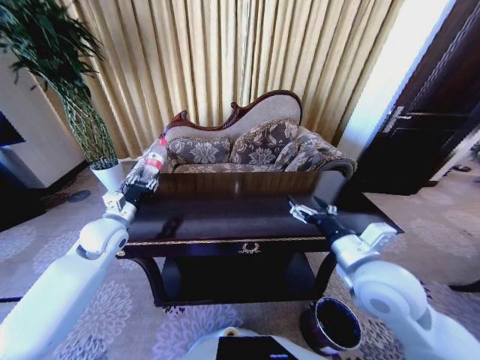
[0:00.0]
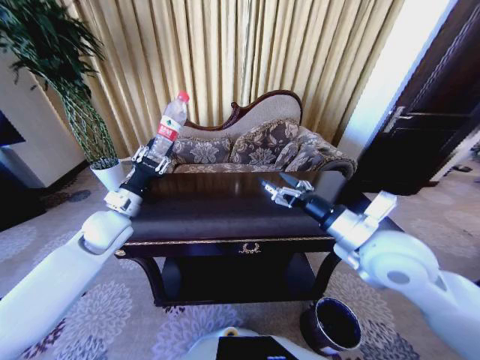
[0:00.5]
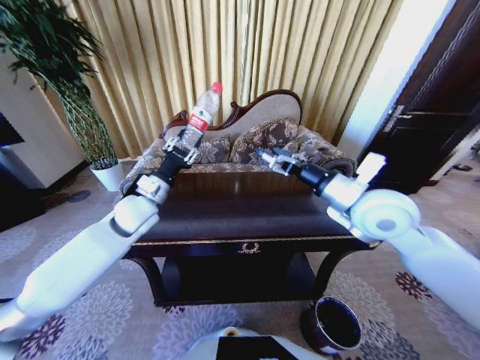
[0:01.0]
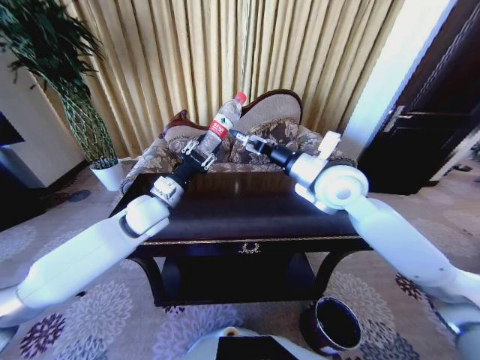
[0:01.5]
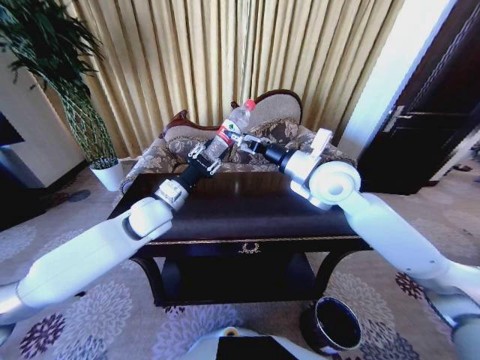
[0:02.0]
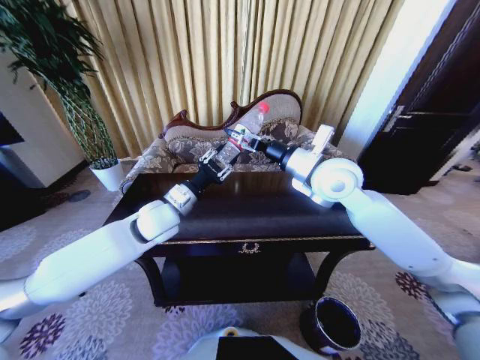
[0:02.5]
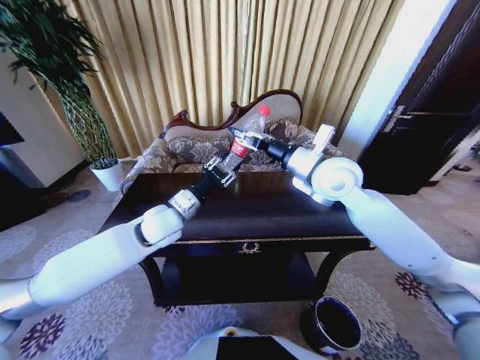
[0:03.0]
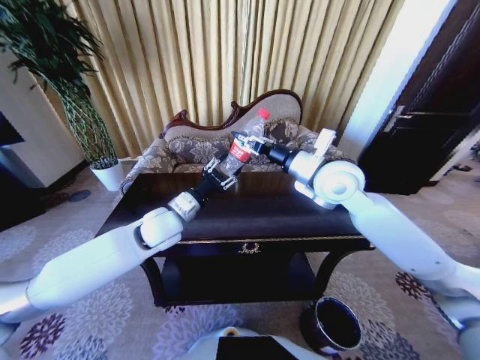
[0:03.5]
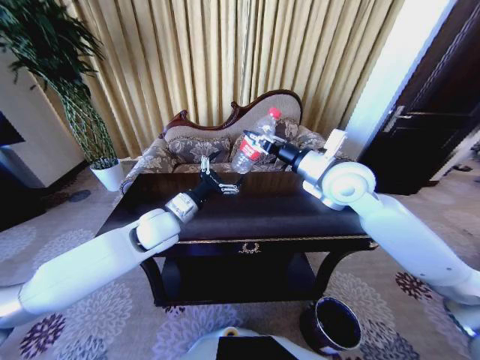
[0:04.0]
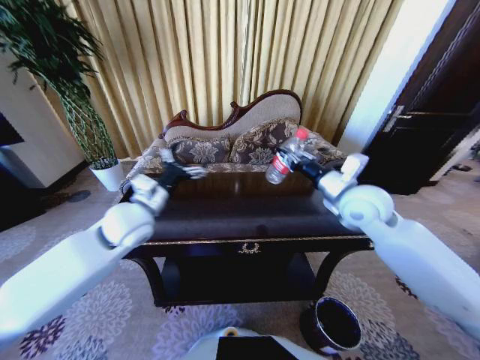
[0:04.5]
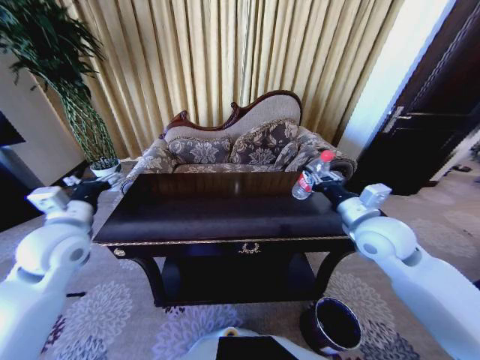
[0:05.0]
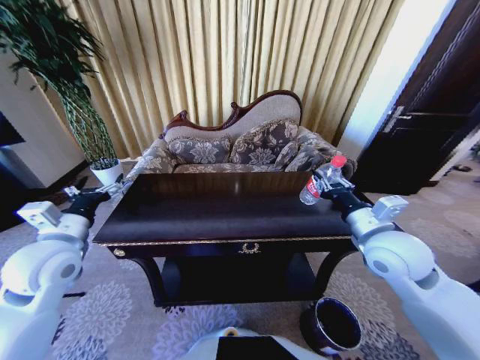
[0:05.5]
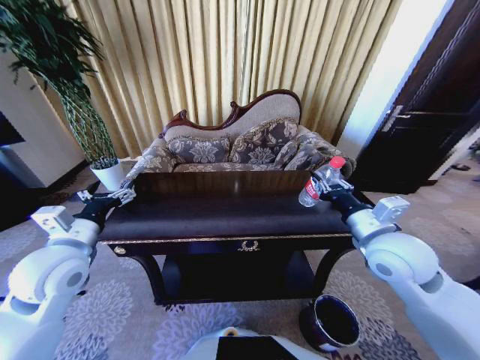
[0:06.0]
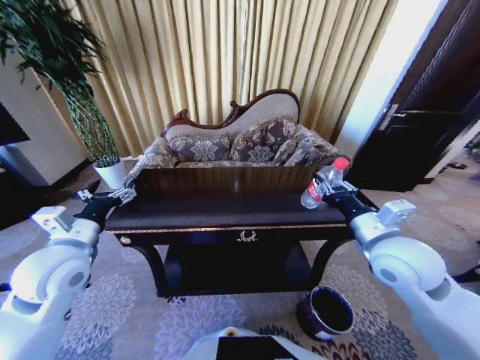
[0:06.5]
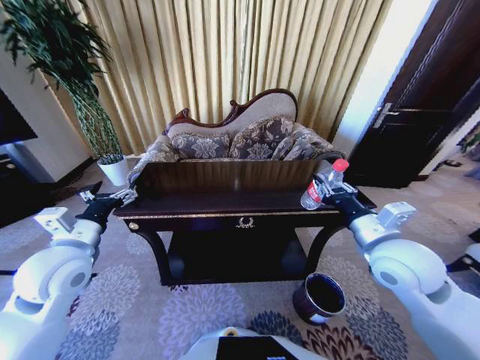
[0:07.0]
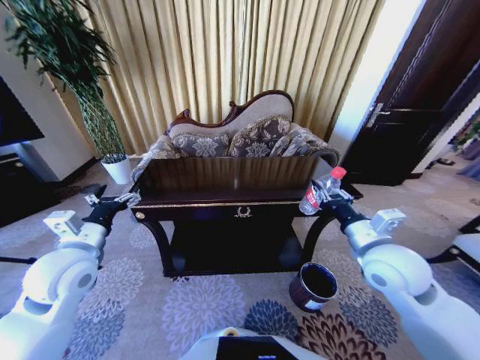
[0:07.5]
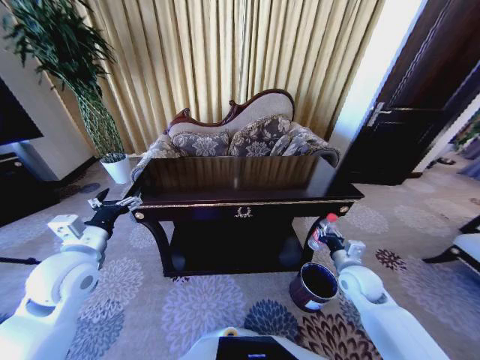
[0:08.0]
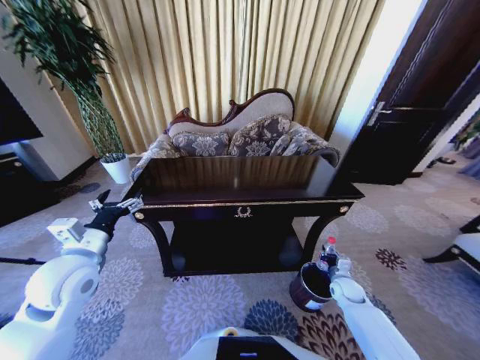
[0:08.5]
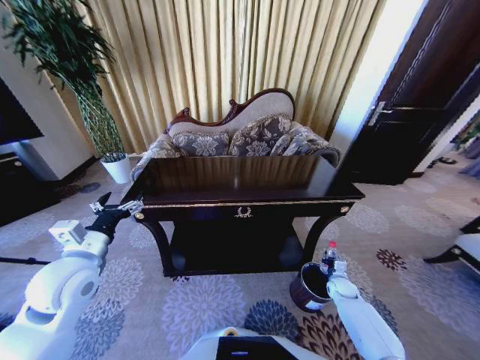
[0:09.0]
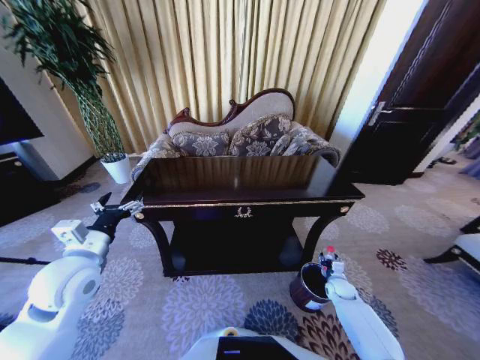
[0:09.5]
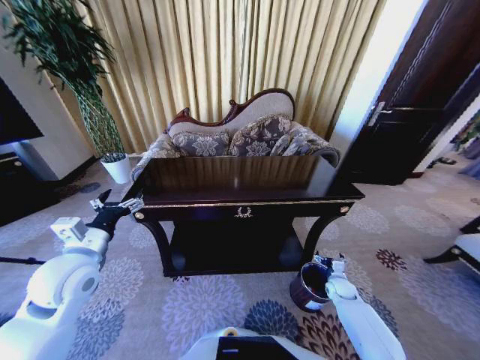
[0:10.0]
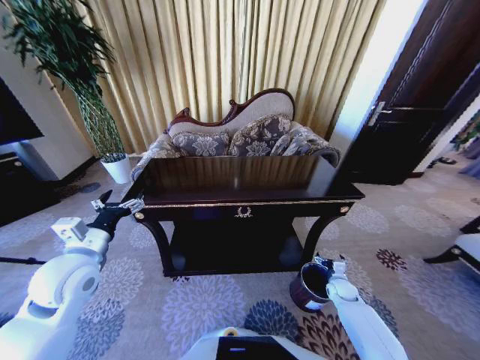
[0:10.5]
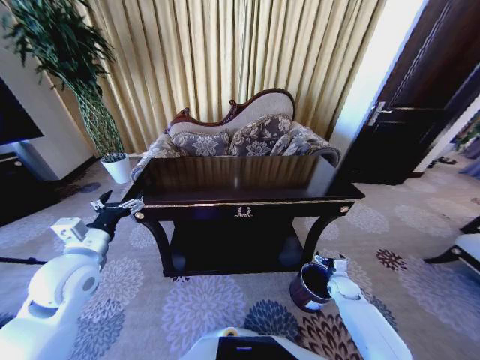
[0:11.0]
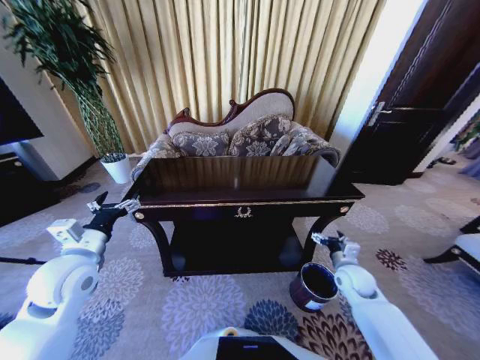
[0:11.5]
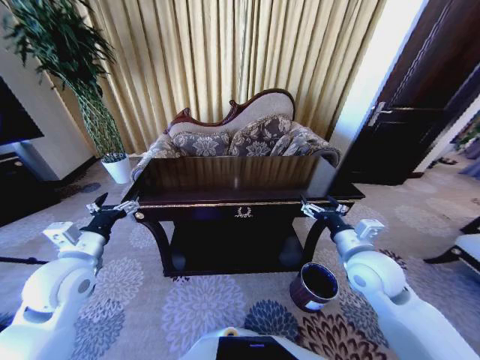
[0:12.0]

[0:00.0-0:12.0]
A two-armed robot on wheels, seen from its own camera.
Task of the whole recording: Move to the front of the table and place the trash on the table into the trash bin.
0:00.0 to 0:02.0: The right gripper travels forward and upward by about 20 cm. The left gripper goes some 15 cm to the right.
0:02.0 to 0:04.0: The right gripper closes up. The left gripper opens its fingers.
0:04.0 to 0:06.0: The right gripper travels backward, downward and to the right by roughly 15 cm; the left gripper heads to the left and backward, covering roughly 20 cm.
0:06.0 to 0:08.0: The right gripper goes some 20 cm downward.
0:08.0 to 0:10.0: The right gripper travels downward by about 20 cm, and opens its fingers.
0:10.0 to 0:12.0: The right gripper is displaced upward by some 30 cm.

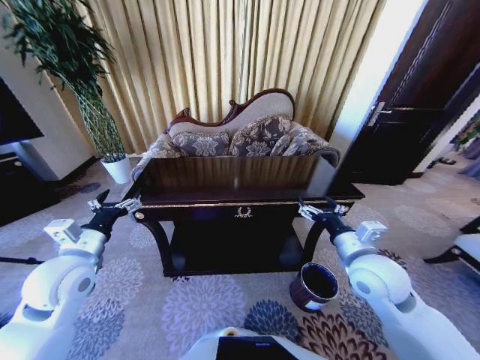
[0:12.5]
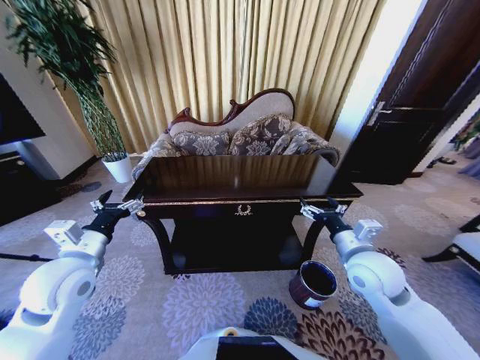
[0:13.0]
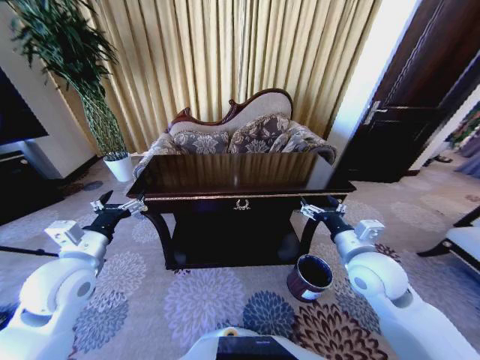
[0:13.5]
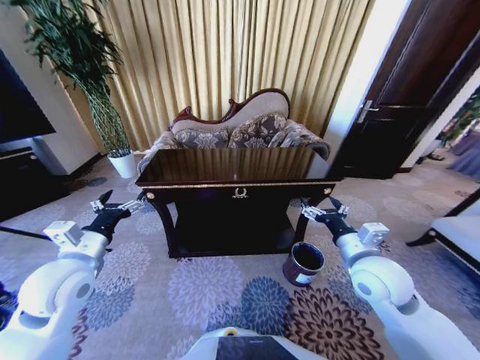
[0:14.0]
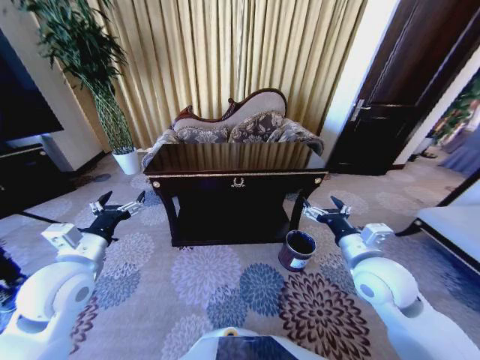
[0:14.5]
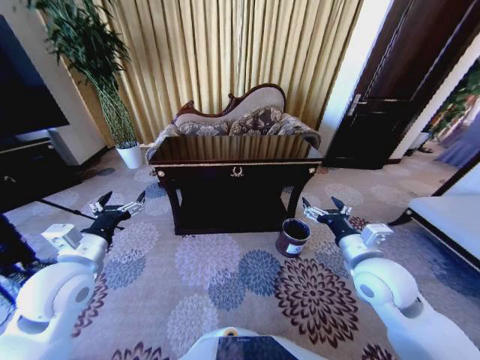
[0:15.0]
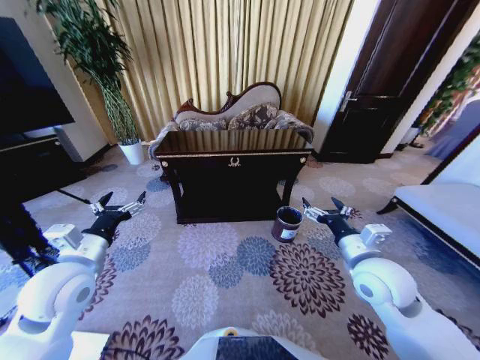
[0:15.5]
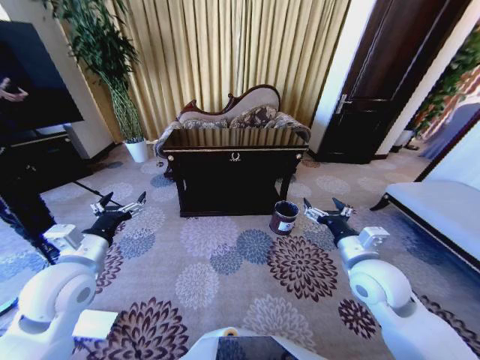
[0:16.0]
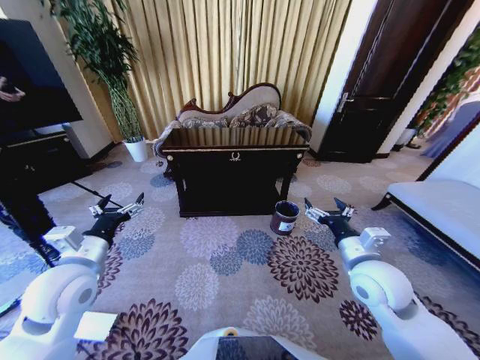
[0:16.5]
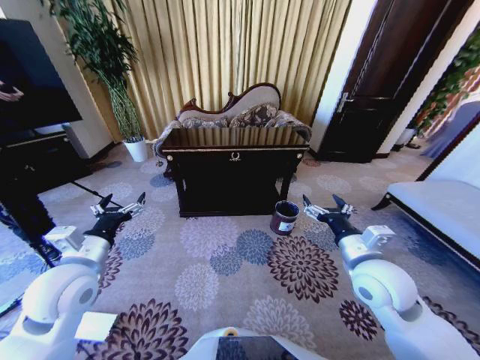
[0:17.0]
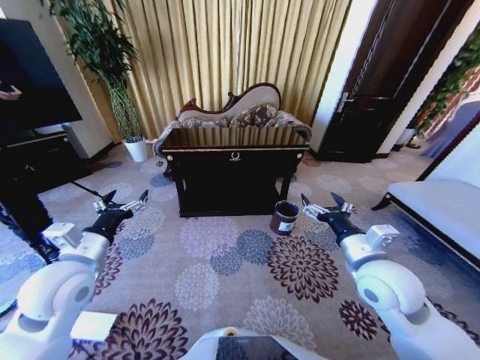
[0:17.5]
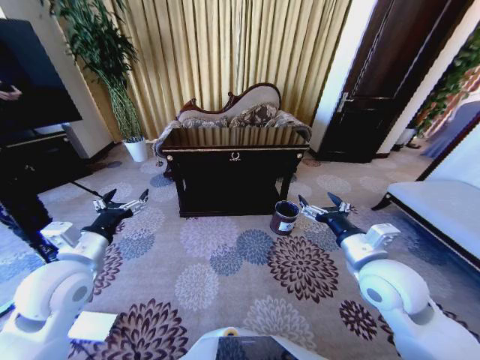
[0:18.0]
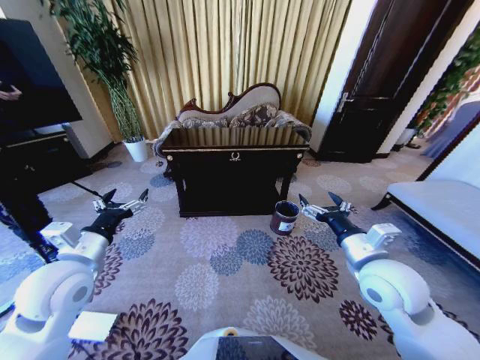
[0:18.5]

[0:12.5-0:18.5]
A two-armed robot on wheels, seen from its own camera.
Task of the whole recording: Move to the front of the table and place the trash on the table into the trash bin.
0:16.5 to 0:18.5: The grippers move only a little.

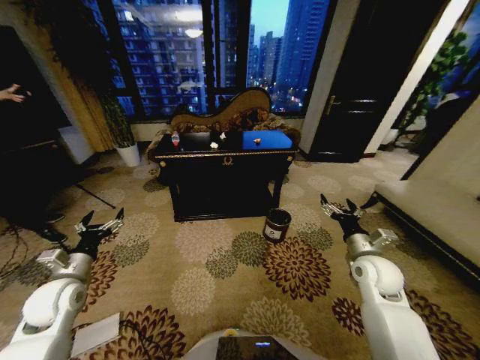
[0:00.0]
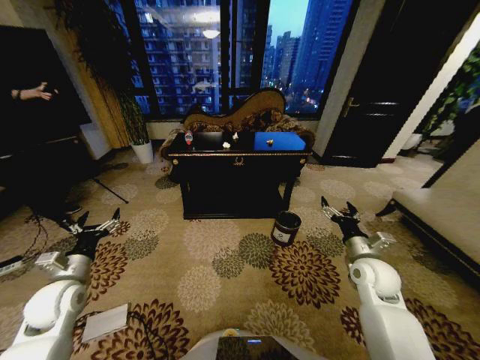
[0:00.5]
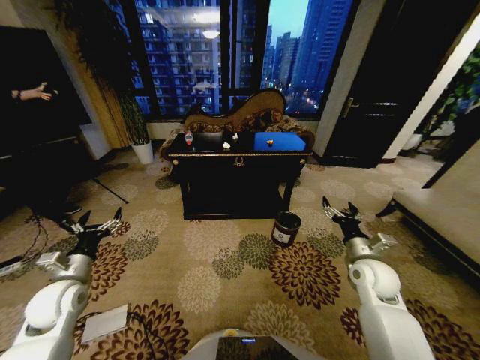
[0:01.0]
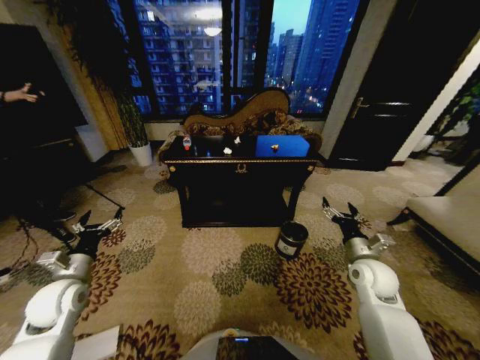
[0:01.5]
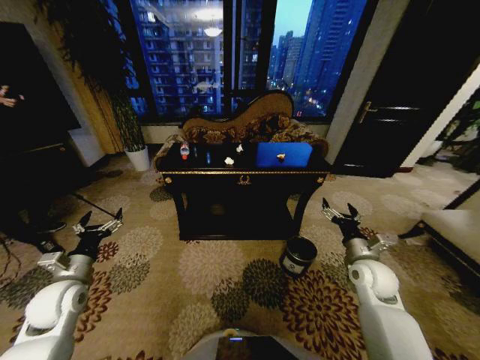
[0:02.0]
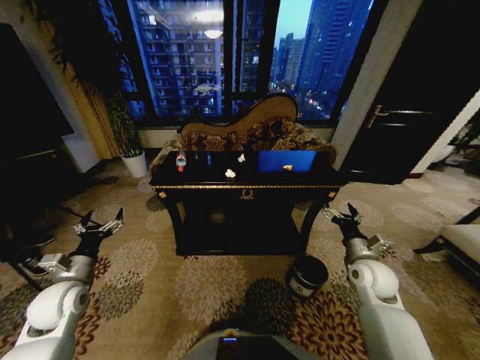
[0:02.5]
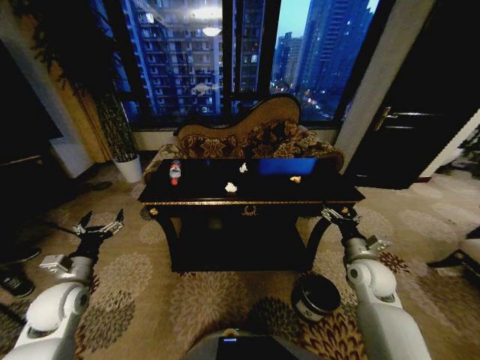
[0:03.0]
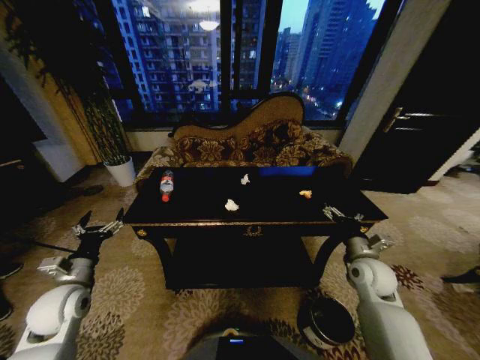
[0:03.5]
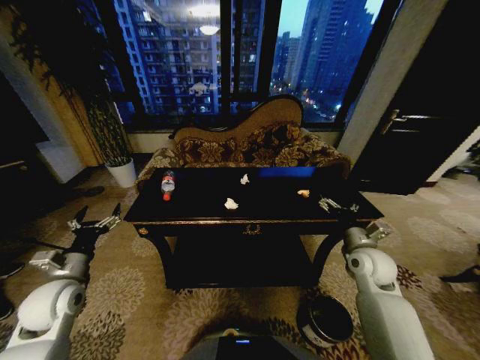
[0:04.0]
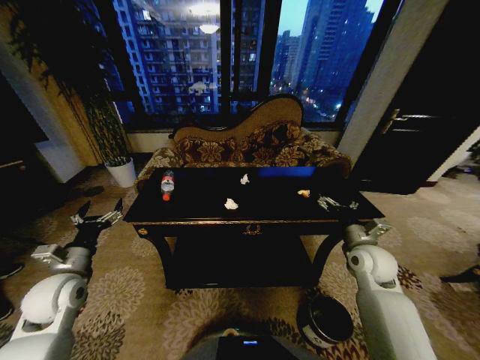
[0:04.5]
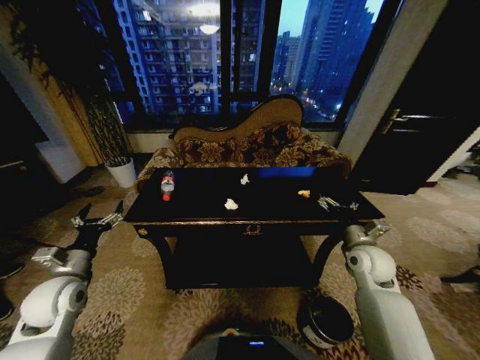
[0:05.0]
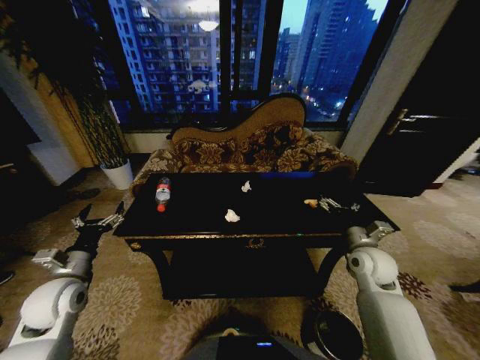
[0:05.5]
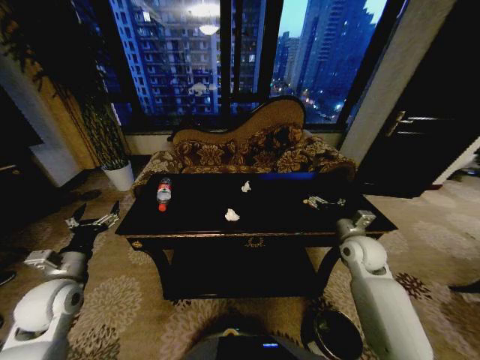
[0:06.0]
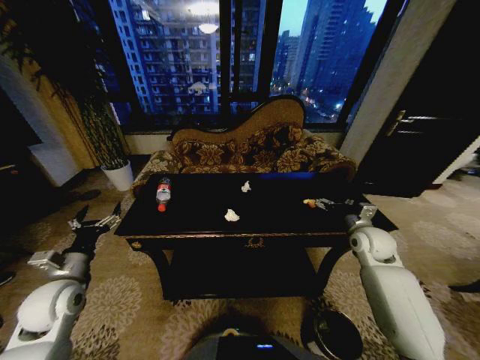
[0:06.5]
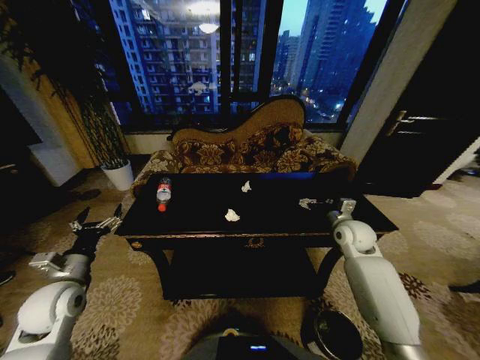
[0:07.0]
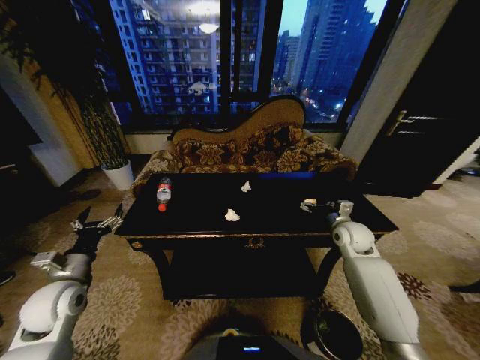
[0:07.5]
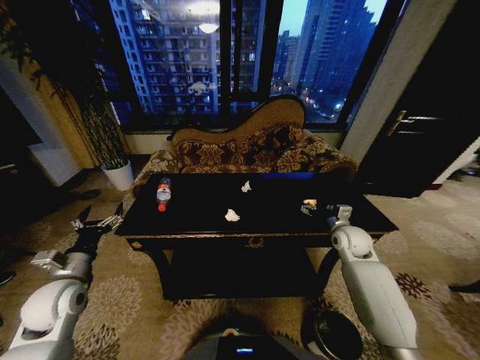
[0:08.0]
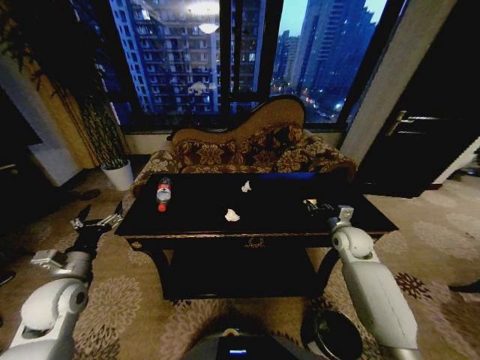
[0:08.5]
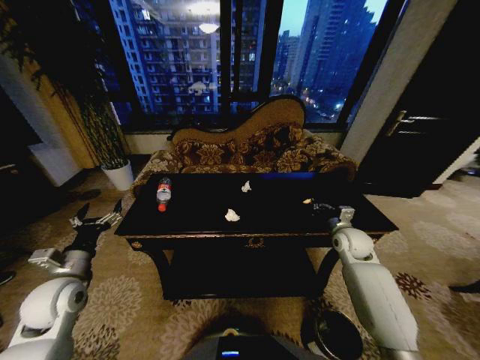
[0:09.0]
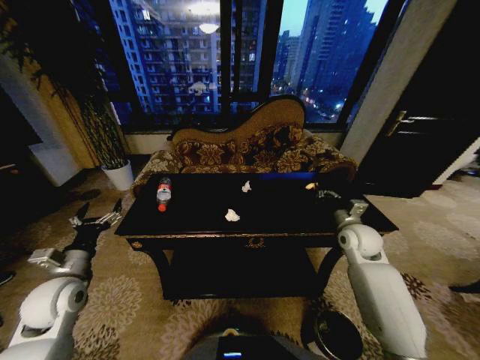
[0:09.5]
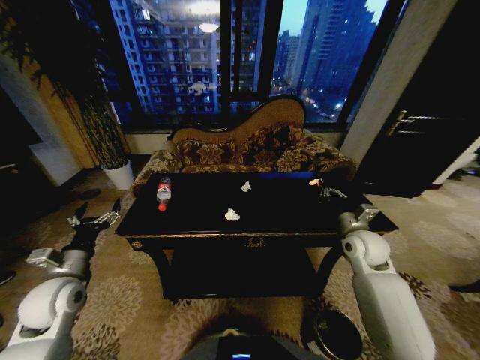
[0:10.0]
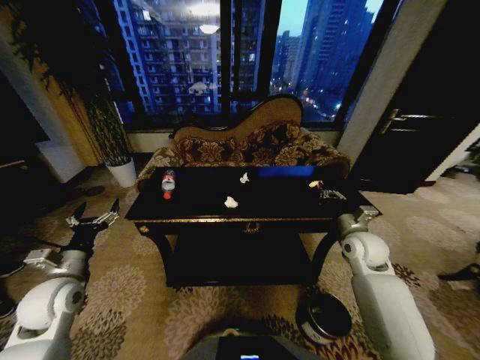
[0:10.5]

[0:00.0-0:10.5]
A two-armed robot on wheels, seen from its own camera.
Task of the whole recording: Move to the front of the table and place the trash on the table into the trash bin.
0:04.0 to 0:06.5: The right gripper moves forward, some 5 cm.
0:06.5 to 0:08.5: The right gripper closes up.
0:08.5 to 0:10.5: The right gripper ends up about 5 cm from where it was, and closes up.
